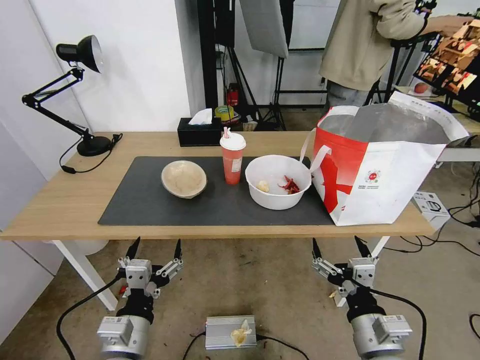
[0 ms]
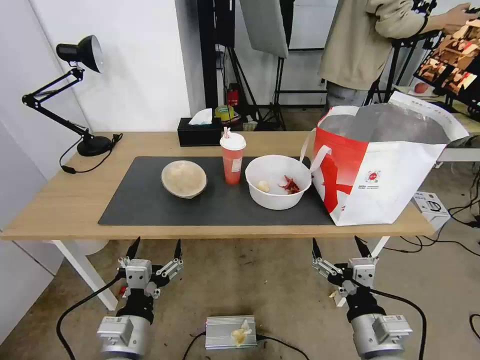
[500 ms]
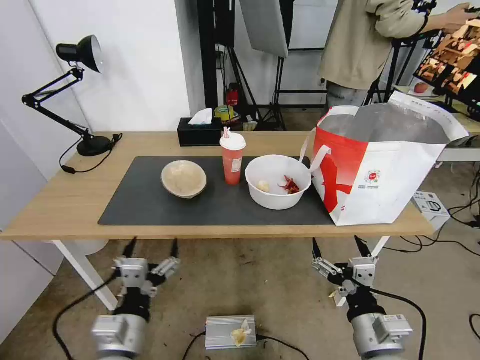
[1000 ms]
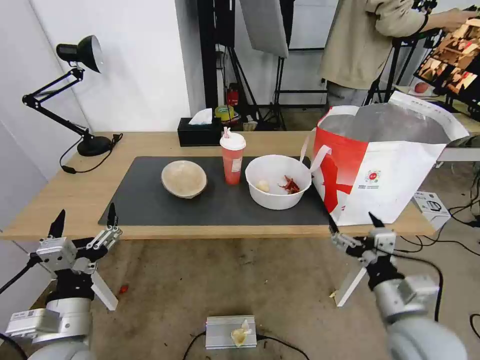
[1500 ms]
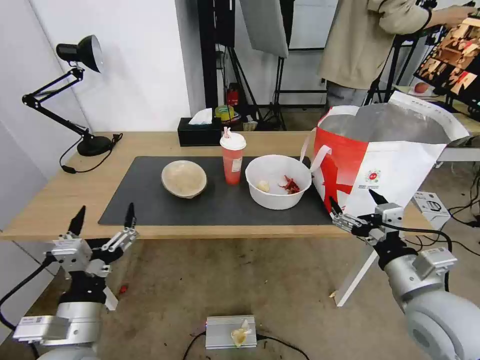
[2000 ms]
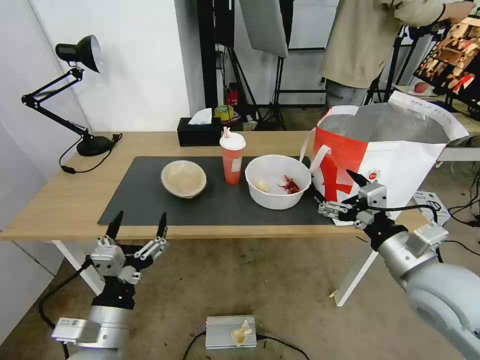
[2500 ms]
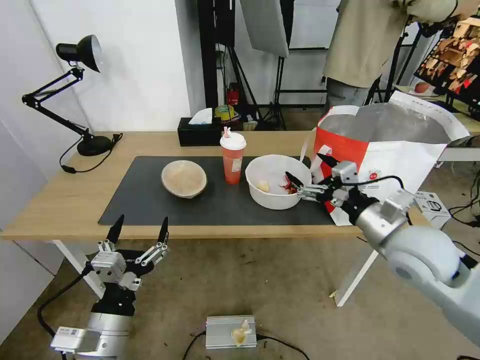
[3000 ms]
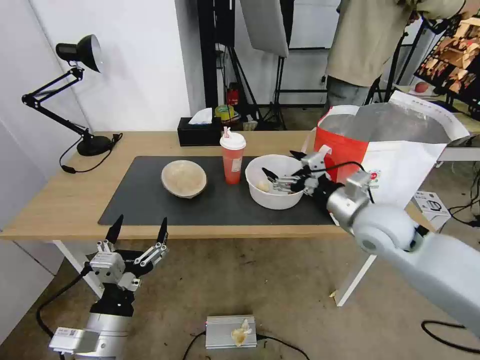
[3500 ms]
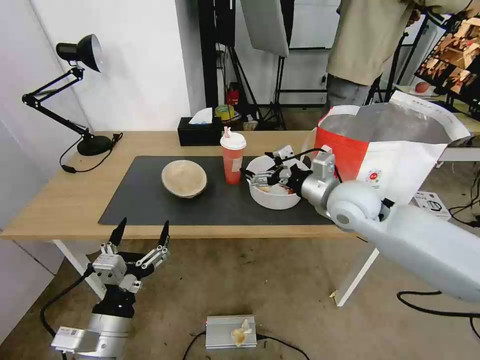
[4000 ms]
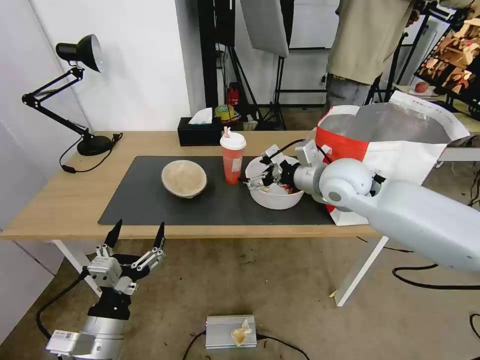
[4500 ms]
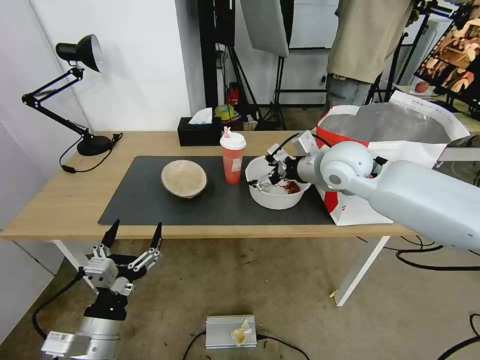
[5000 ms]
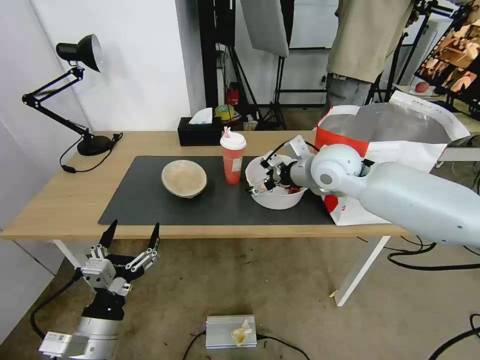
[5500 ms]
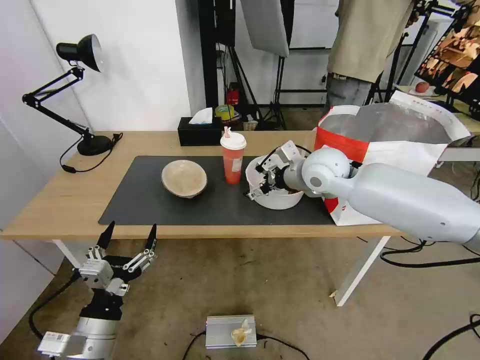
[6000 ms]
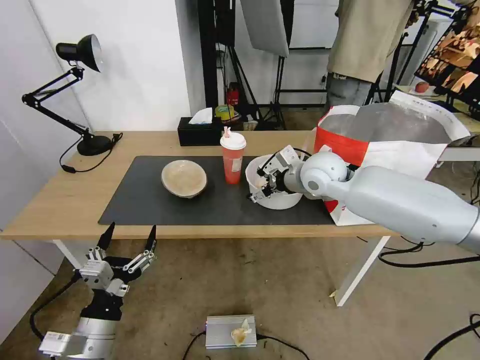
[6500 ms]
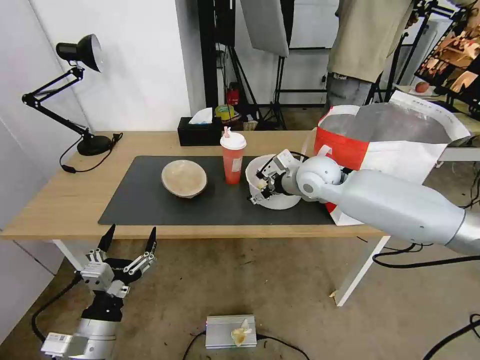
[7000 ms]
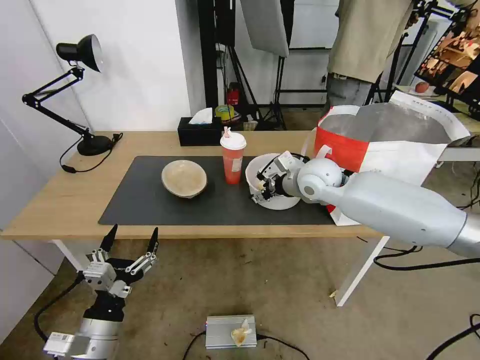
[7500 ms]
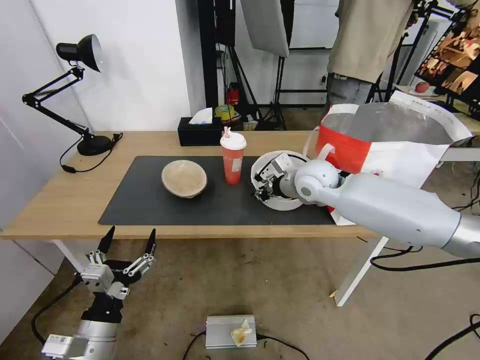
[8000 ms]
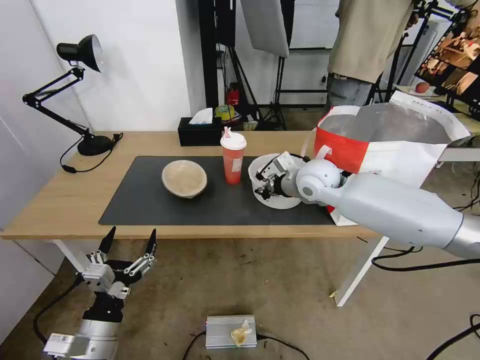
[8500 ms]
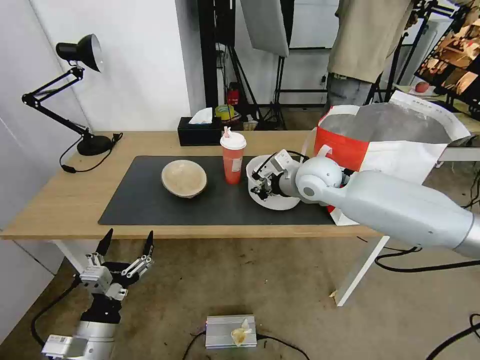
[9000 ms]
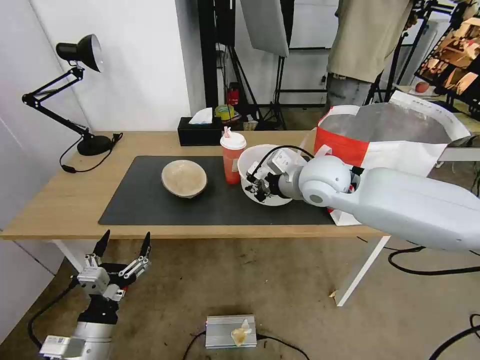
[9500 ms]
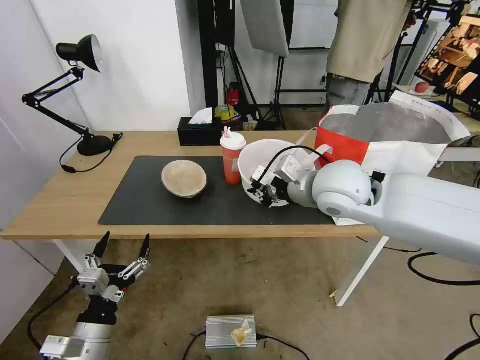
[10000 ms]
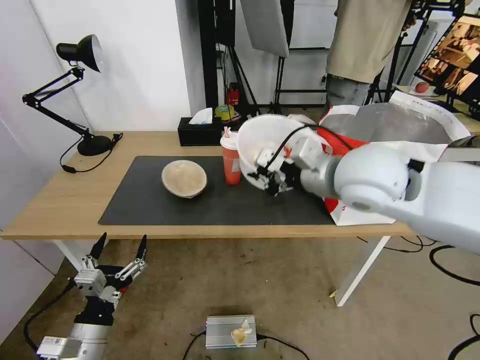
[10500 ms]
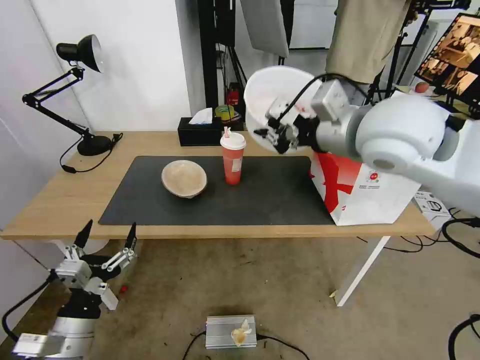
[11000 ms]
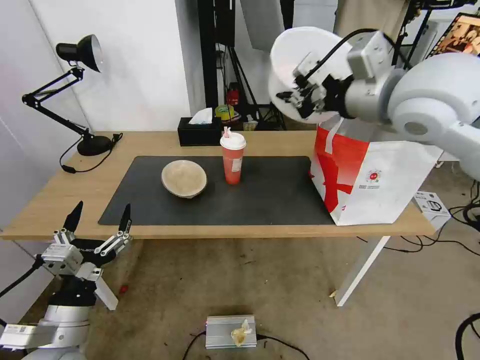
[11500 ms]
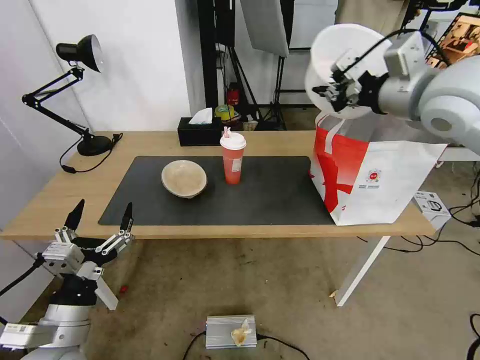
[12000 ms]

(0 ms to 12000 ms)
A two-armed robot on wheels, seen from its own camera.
Task of the whole recording: Pick up the trash from the table and place it into the takeout bag.
2000 ms - 4000 ms: The right gripper goes approximately 20 cm forward and to the left.
4000 ms - 6000 ms: The right gripper travels forward by roughly 5 cm.
6000 ms - 8000 ms: The right gripper closes its fingers.
8000 ms - 10000 ms: The right gripper is displaced backward and upward by about 10 cm.
10000 ms - 12000 ms: The left gripper travels upward by approximately 10 cm. Meanwhile the right gripper goes about 20 cm upward and to the right.

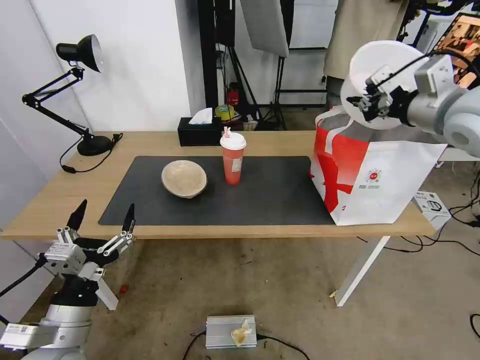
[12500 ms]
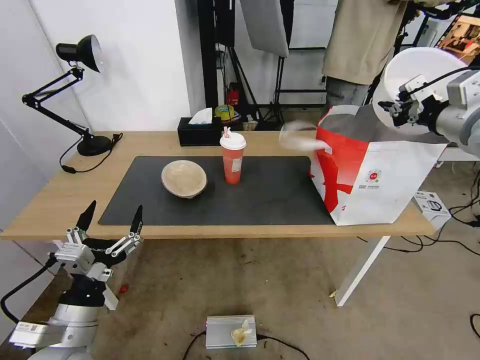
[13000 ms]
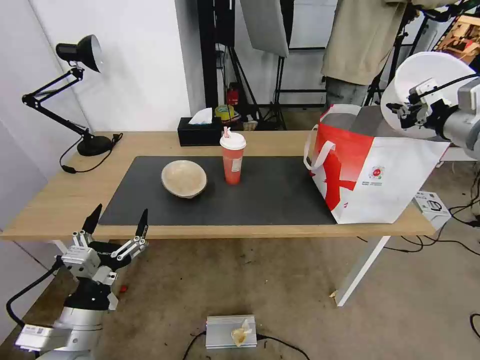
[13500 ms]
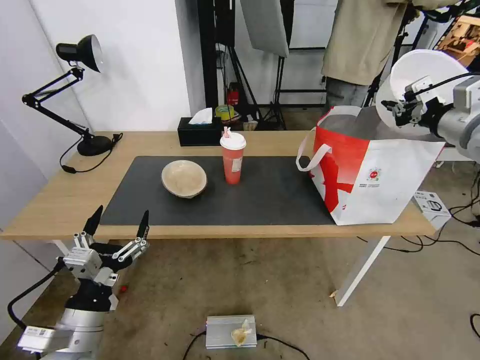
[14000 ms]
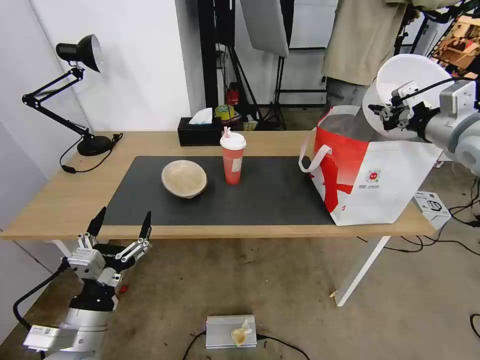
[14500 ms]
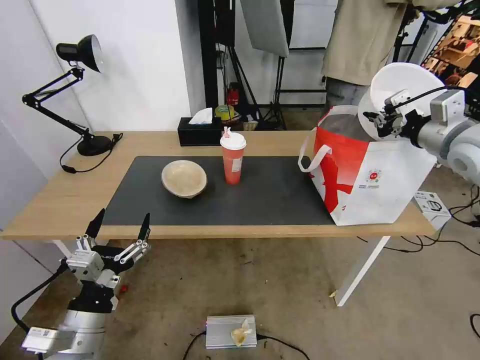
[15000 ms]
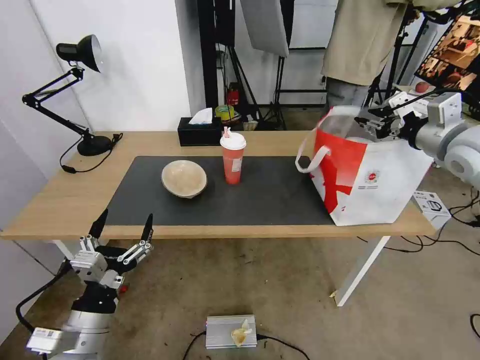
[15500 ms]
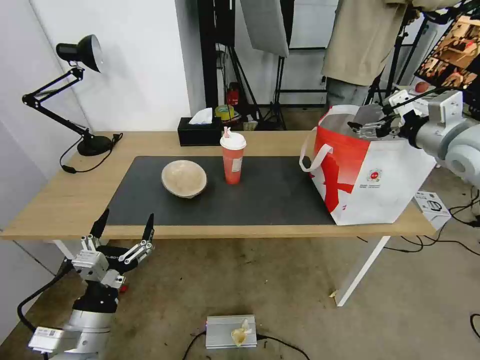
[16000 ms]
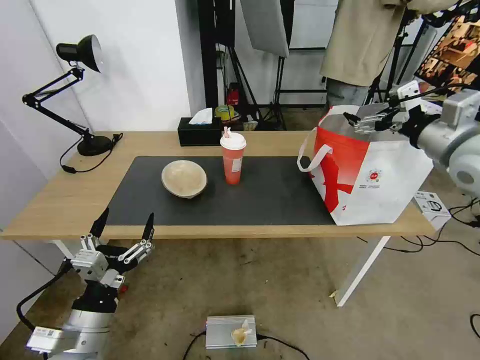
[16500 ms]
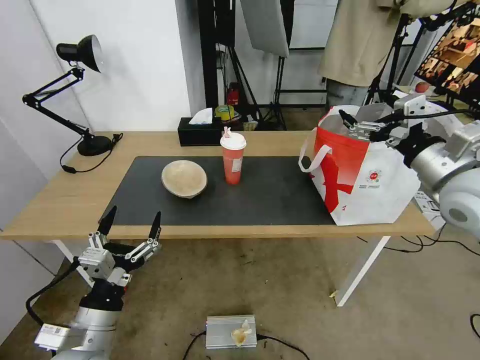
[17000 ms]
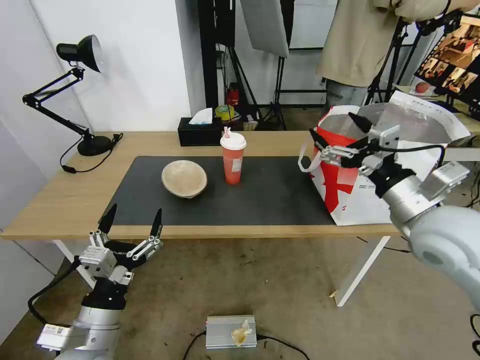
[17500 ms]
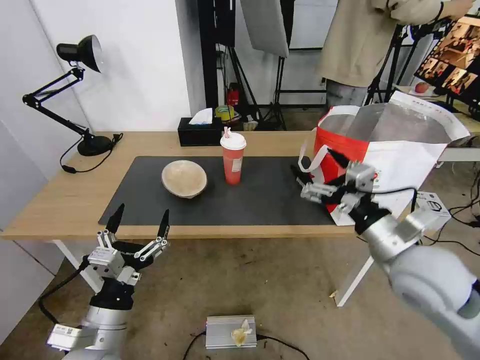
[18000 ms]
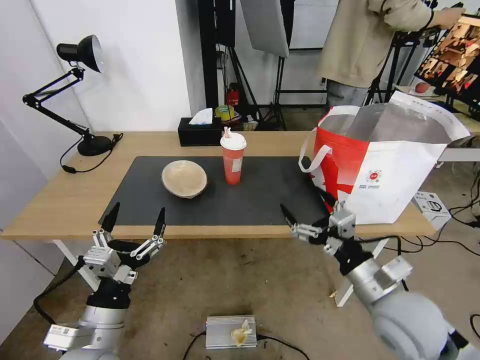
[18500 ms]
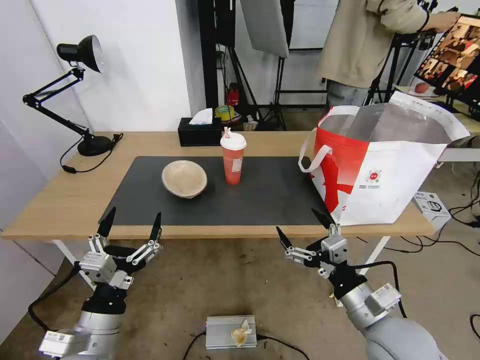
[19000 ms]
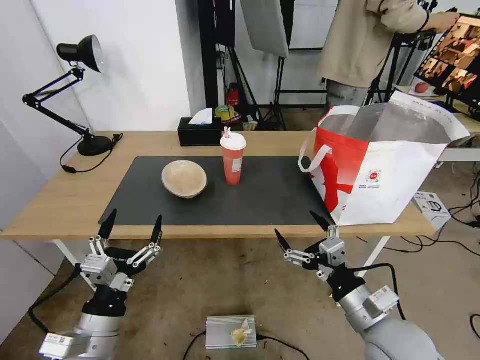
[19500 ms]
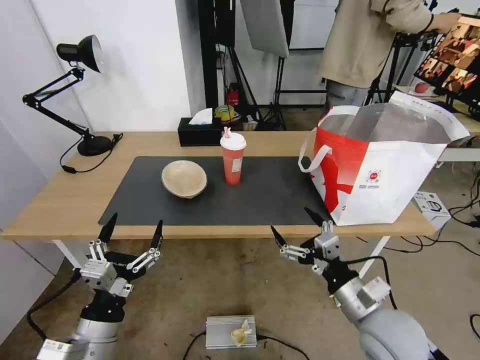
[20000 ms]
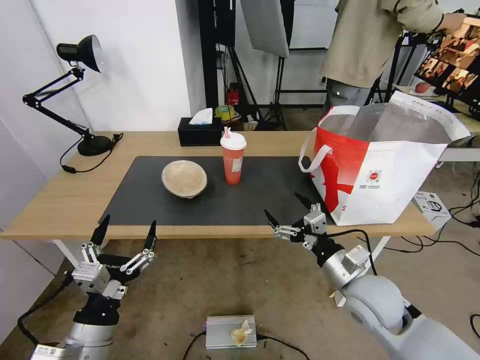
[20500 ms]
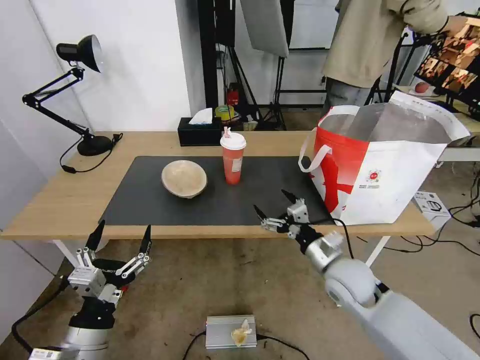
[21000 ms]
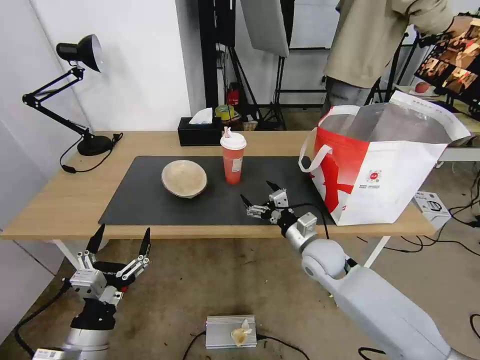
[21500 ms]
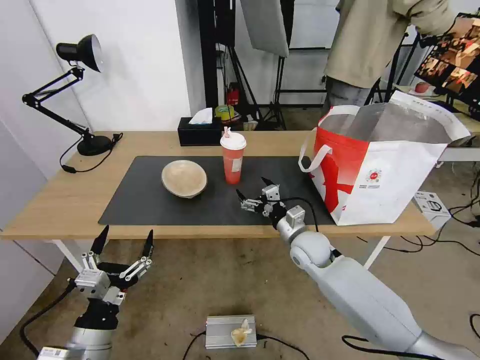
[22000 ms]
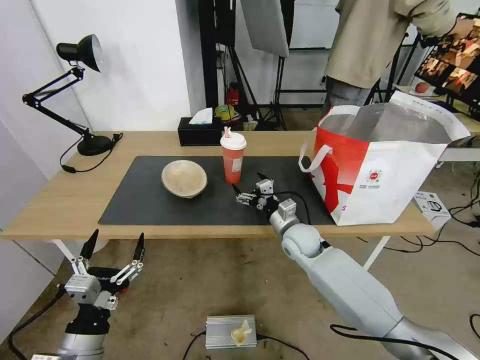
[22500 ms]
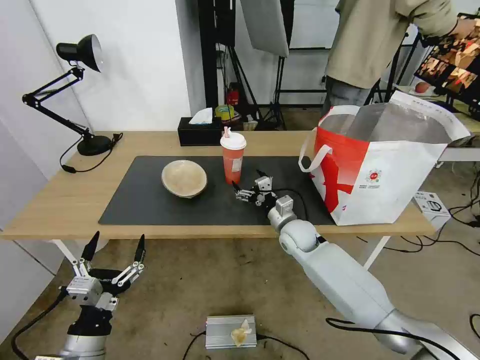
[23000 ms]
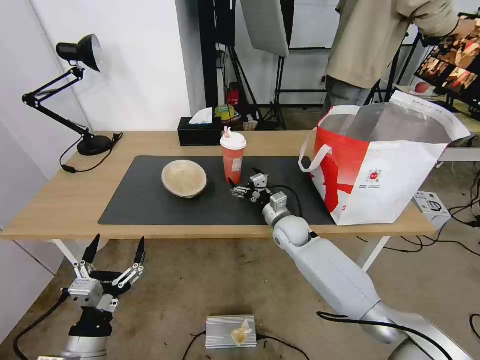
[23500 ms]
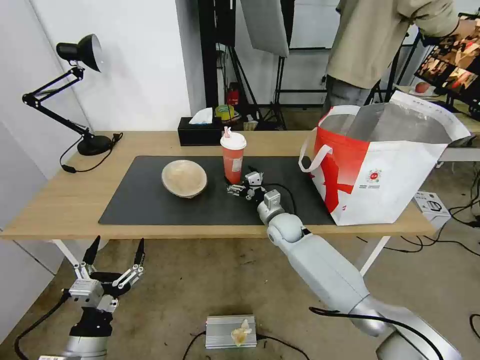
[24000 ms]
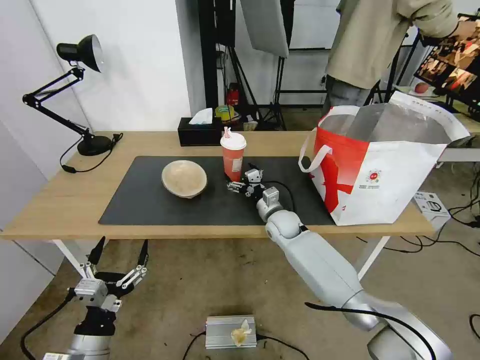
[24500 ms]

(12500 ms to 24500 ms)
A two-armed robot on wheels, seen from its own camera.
Task of the whole recording: Pick up the trash from the table and place it into the takeout bag.
12500 ms - 14500 ms: The right gripper heads to the right, covering about 5 cm.
14500 ms - 16500 ms: The right gripper opens its fingers.
16500 ms - 18500 ms: The right gripper travels downward, backward and to the left by about 30 cm.
18500 ms - 20500 ms: The right gripper is displaced forward and downward by roughly 5 cm.
20500 ms - 22500 ms: The right gripper is displaced forward and to the left by roughly 20 cm.
22500 ms - 24500 ms: The right gripper goes some 5 cm forward.

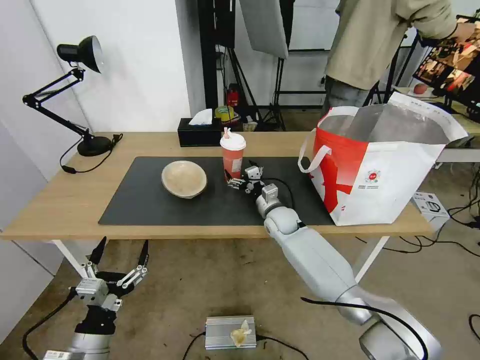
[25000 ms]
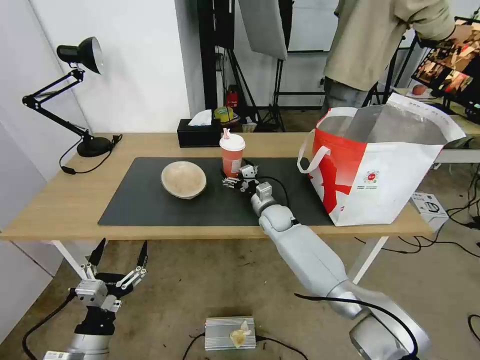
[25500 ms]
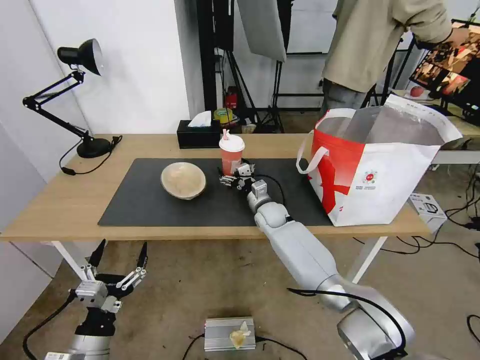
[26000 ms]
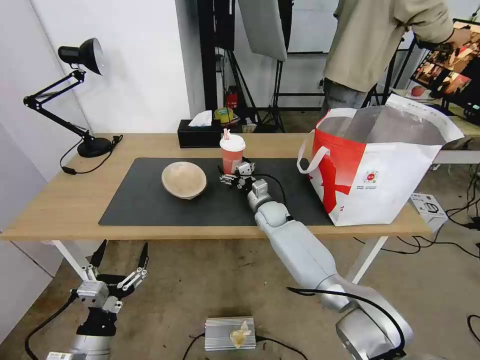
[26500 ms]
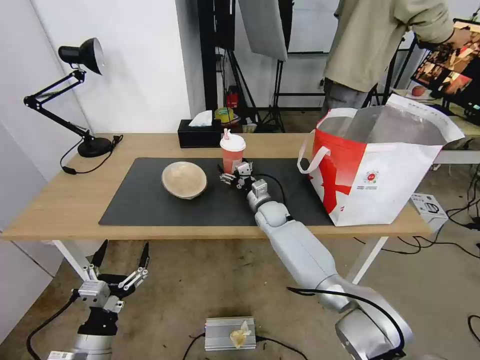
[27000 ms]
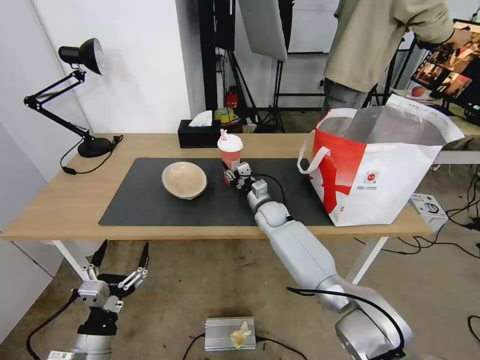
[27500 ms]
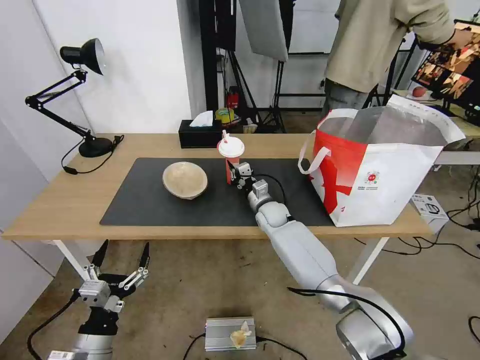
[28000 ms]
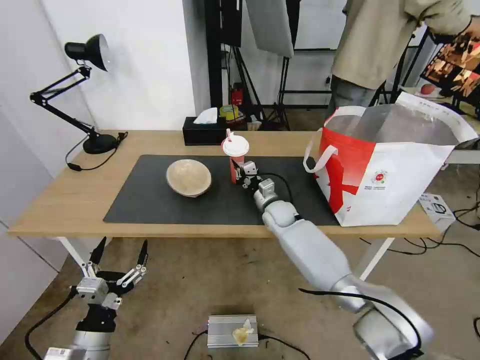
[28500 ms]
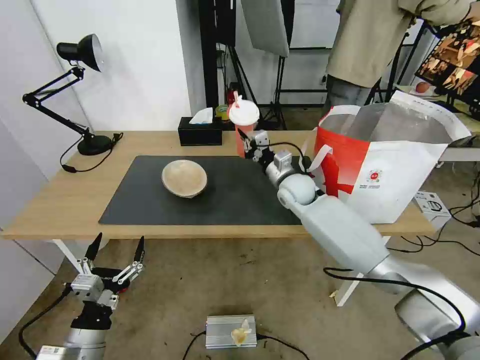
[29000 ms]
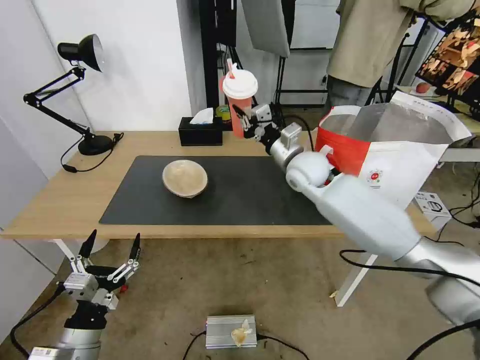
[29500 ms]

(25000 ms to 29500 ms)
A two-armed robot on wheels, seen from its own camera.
Task of the whole recording: Pick up the trash from the table and place it into the takeout bag.
25000 ms - 27000 ms: There are only small adjustments of the grippers.
27000 ms - 29500 ms: The right gripper goes some 20 cm upward, and closes its fingers.